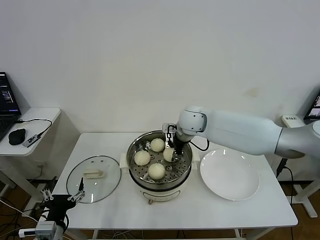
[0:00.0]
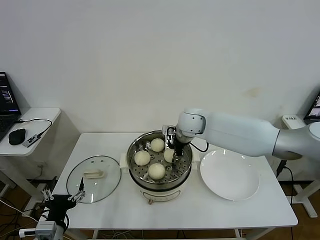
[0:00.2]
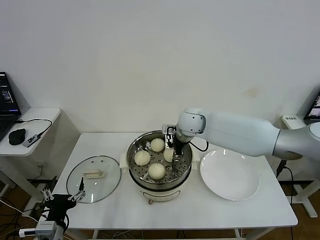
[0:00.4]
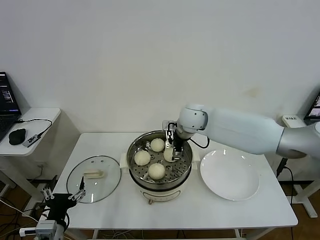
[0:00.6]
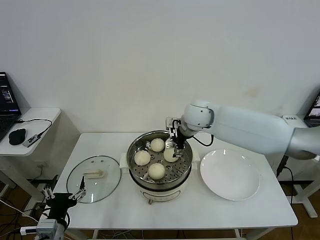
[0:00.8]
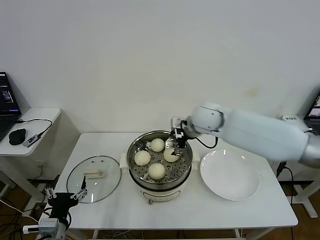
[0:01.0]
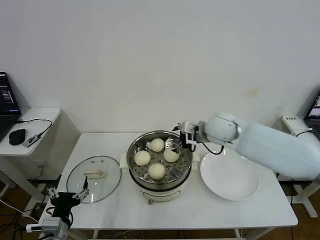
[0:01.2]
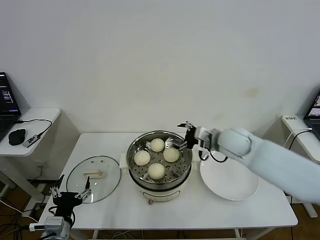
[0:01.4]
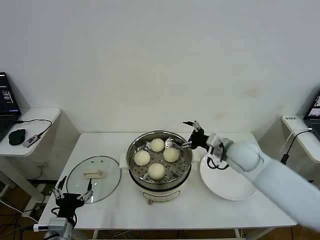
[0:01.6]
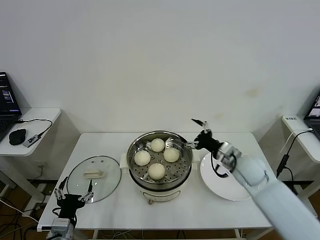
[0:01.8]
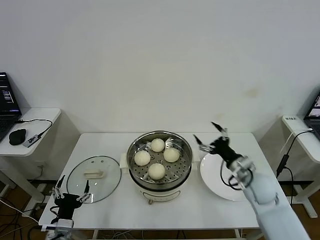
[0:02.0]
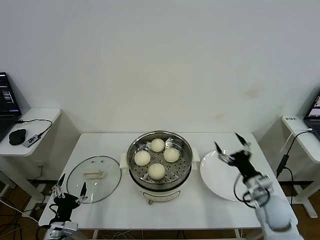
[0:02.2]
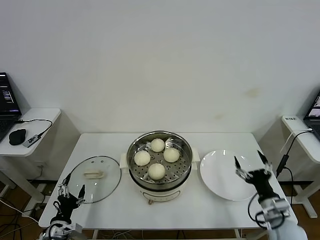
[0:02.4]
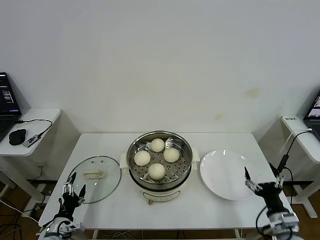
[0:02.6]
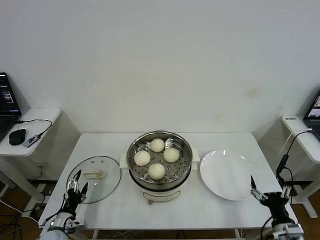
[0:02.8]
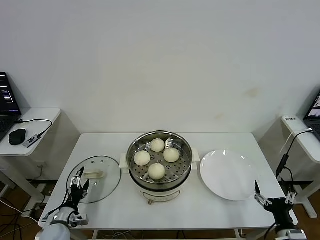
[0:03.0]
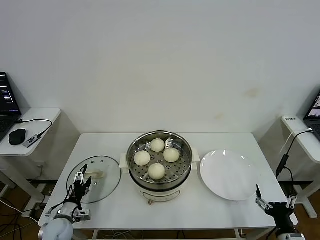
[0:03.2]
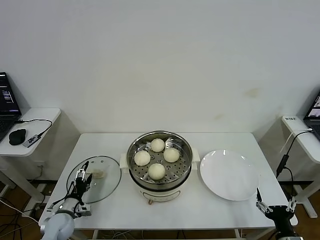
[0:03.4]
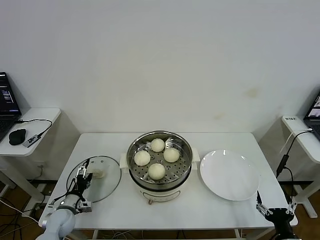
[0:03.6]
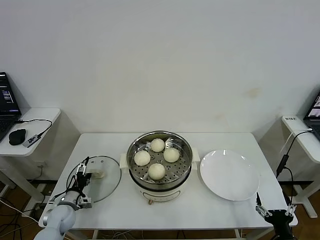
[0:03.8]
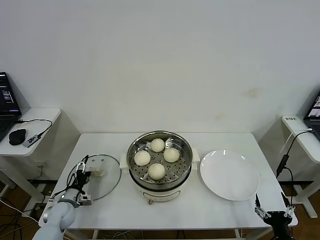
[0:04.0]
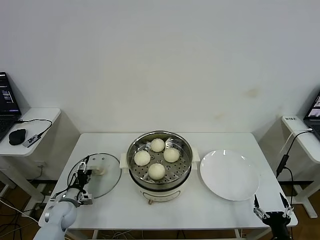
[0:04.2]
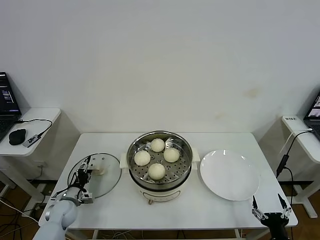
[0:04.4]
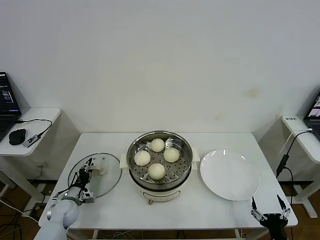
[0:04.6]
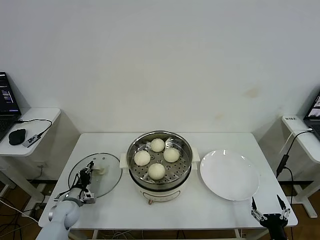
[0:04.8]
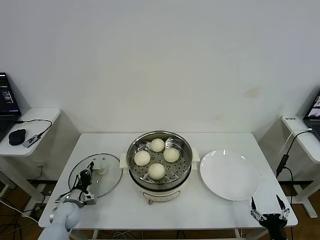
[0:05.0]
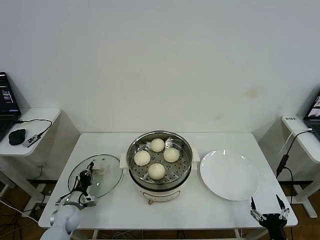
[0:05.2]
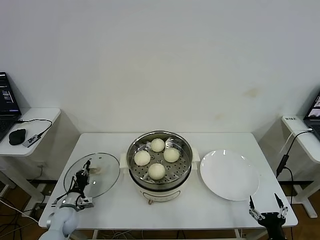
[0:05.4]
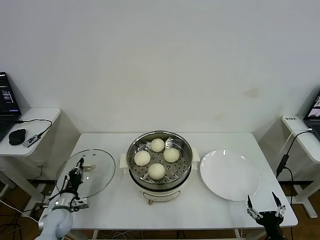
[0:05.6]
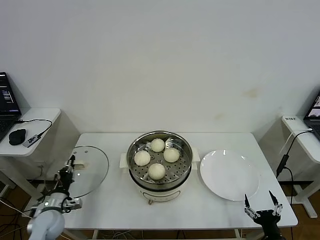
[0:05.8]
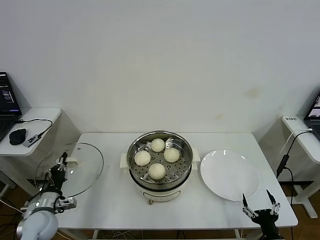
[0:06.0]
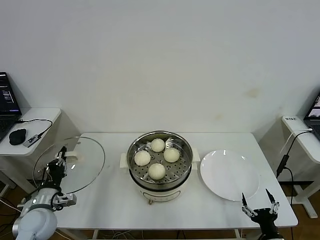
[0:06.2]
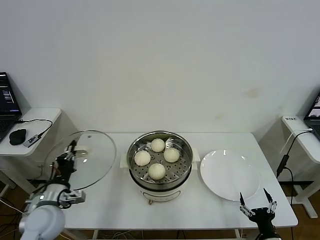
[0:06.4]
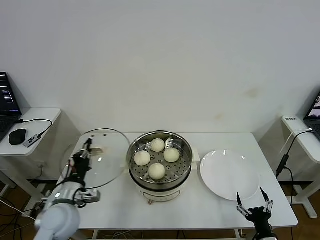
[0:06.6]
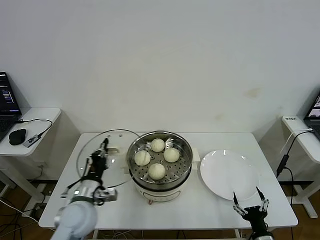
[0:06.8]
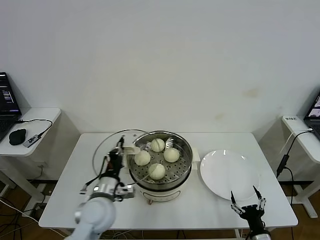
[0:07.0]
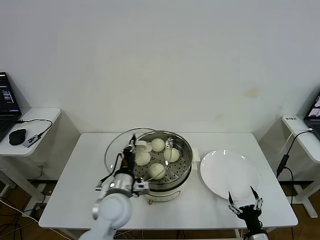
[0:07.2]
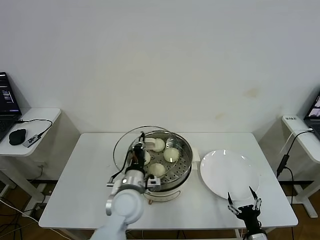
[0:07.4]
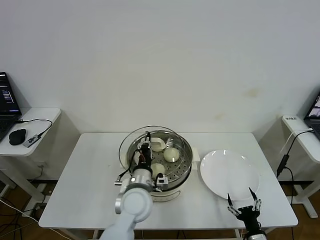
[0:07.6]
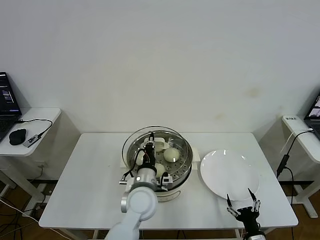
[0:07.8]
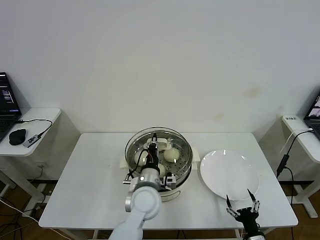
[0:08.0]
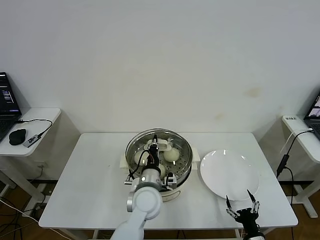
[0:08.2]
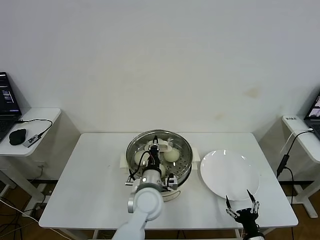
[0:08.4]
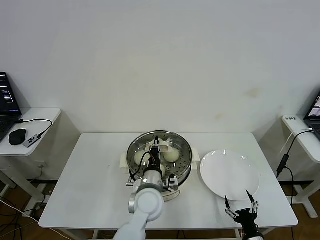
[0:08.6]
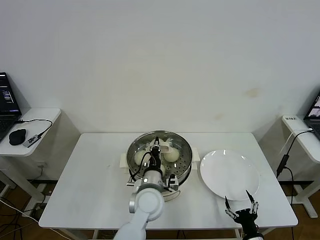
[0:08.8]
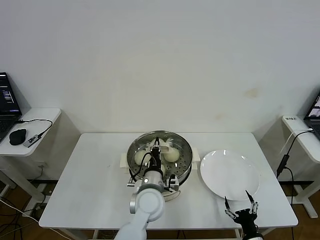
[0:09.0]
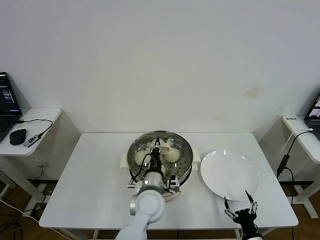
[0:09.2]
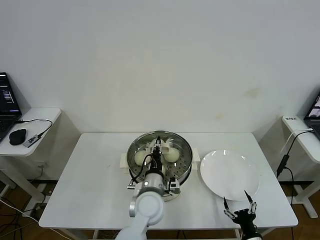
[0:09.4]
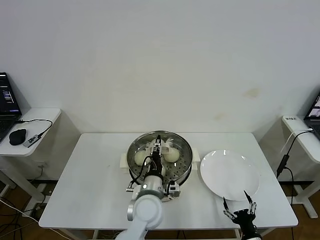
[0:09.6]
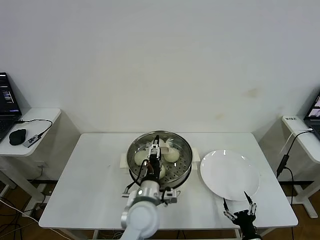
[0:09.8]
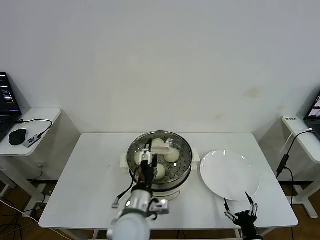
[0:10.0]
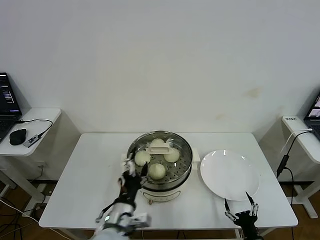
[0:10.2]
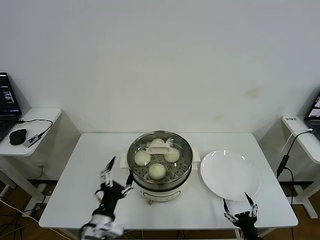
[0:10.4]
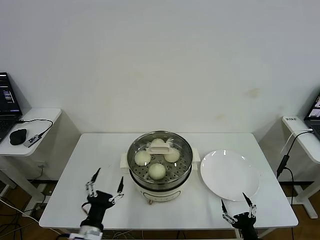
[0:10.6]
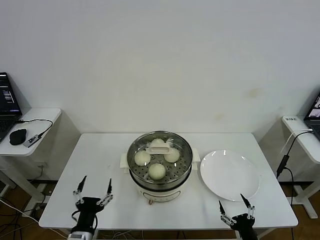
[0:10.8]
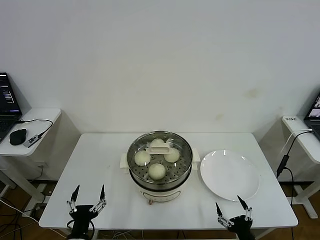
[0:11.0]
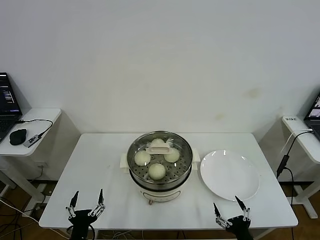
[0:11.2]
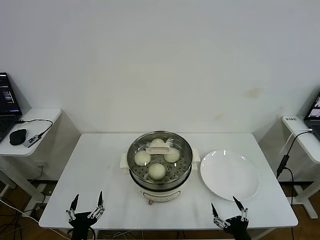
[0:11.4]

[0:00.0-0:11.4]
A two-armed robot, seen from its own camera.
Task of the whole recording: take steamed baozi put them in steamer then cover it.
Step, 0:00.8 to 0:05.0: Grasp the pot lid with left gripper.
Step, 0:05.2 to 0:09.6: Place the pot lid on the steamer with left gripper.
0:00.0 to 0:01.4: The right gripper is displaced to the right and backward by approximately 15 cm, and opens its fingers.
0:01.4 to 0:02.8: The right gripper heads backward, downward and to the right, covering some 35 cm; the left gripper heads downward, to the left and forward, covering approximately 15 cm.
0:02.8 to 0:04.2: The right gripper ends up about 5 cm from where it was. Meanwhile the left gripper travels forward by roughly 10 cm.
0:04.2 to 0:05.6: The left gripper closes its fingers.
0:05.6 to 0:07.2: The right gripper moves about 5 cm. The left gripper heads to the right and upward, covering roughly 30 cm.
0:07.2 to 0:08.6: The left gripper moves to the right, about 10 cm.
0:08.6 to 0:10.0: The left gripper moves backward, some 5 cm, and opens.
0:10.0 to 0:11.4: The left gripper heads to the left, backward and downward, covering some 25 cm. Meanwhile the right gripper shifts roughly 5 cm upward.

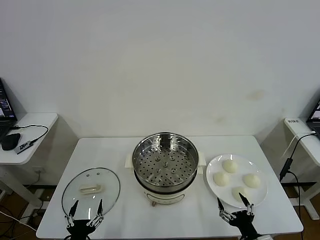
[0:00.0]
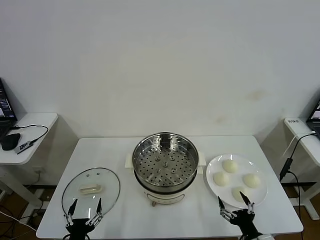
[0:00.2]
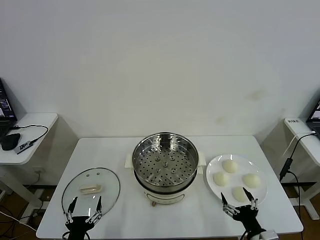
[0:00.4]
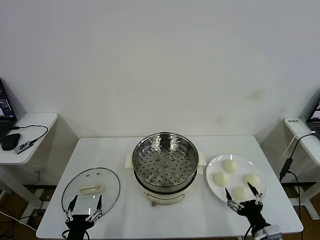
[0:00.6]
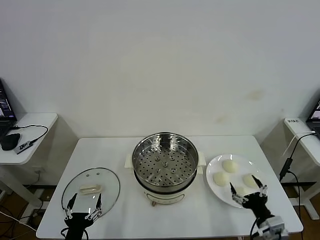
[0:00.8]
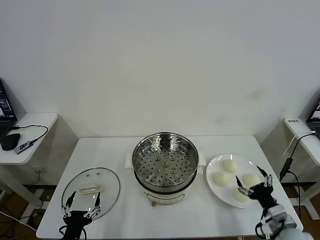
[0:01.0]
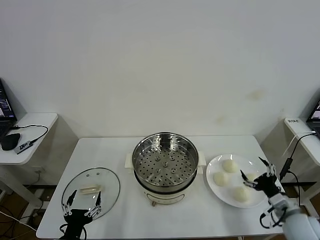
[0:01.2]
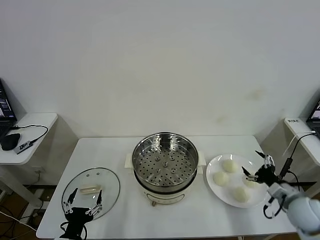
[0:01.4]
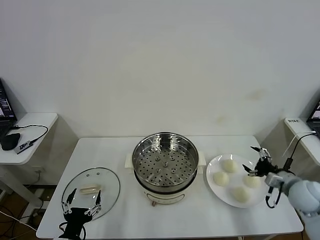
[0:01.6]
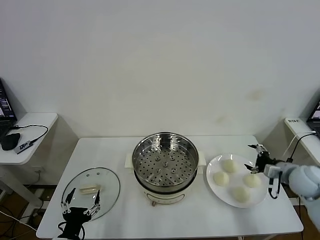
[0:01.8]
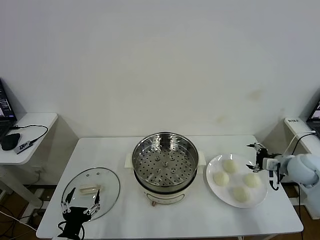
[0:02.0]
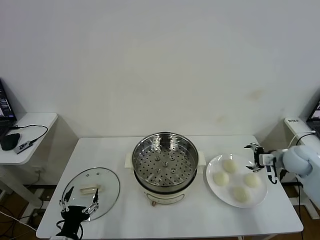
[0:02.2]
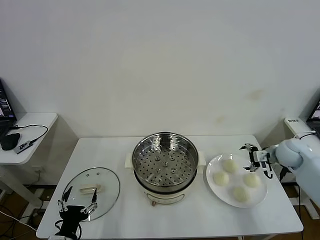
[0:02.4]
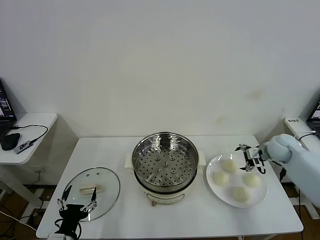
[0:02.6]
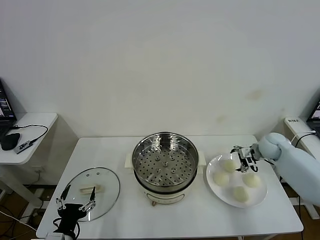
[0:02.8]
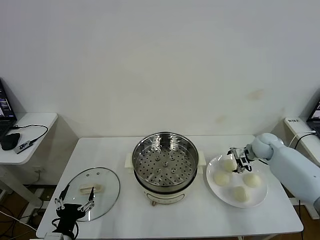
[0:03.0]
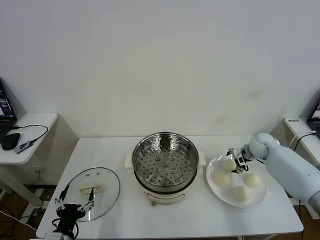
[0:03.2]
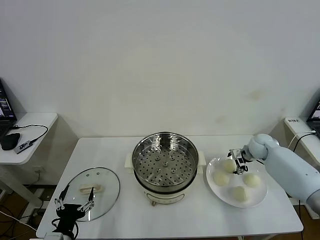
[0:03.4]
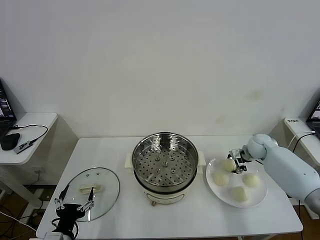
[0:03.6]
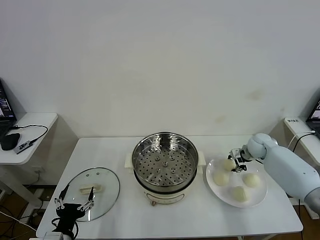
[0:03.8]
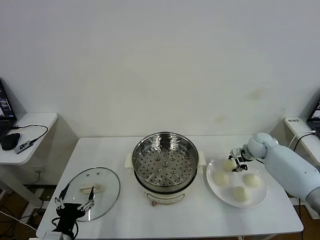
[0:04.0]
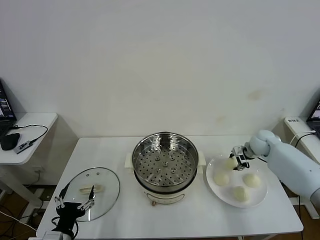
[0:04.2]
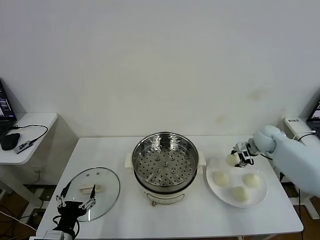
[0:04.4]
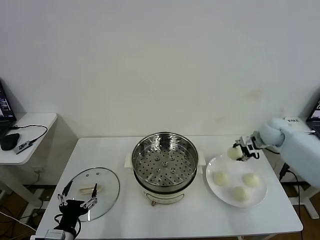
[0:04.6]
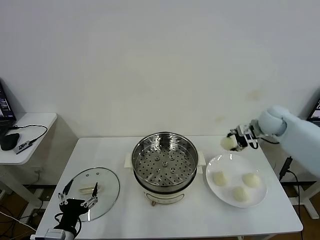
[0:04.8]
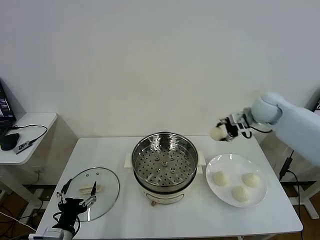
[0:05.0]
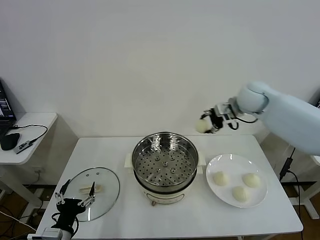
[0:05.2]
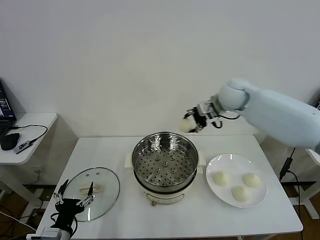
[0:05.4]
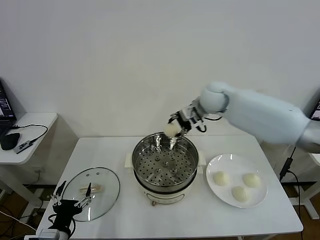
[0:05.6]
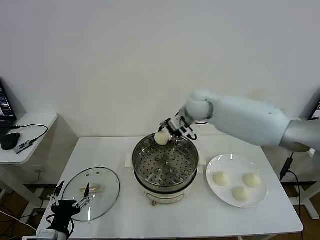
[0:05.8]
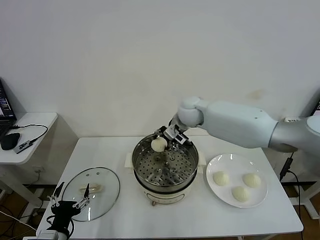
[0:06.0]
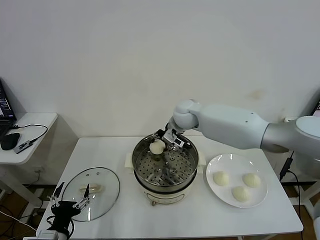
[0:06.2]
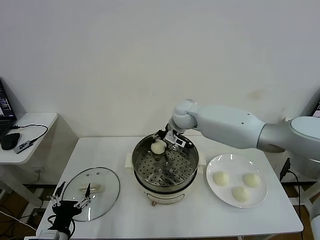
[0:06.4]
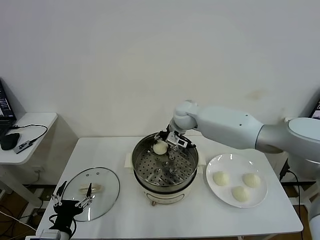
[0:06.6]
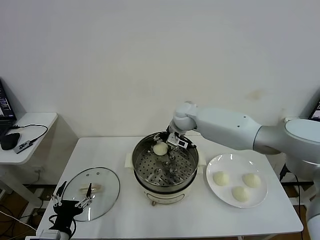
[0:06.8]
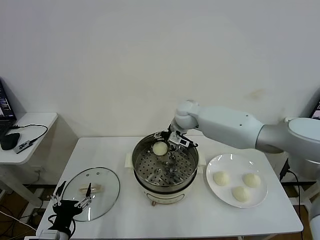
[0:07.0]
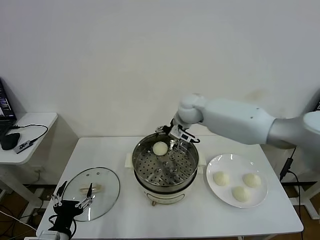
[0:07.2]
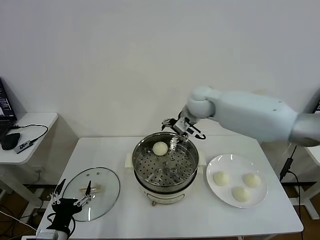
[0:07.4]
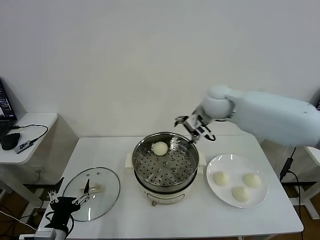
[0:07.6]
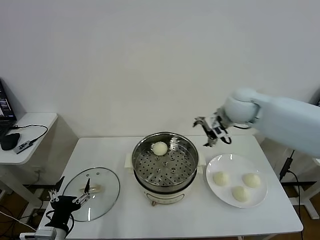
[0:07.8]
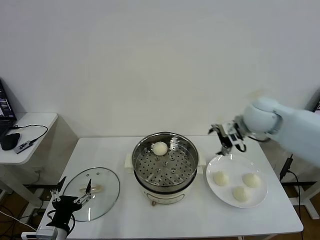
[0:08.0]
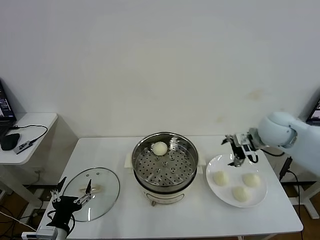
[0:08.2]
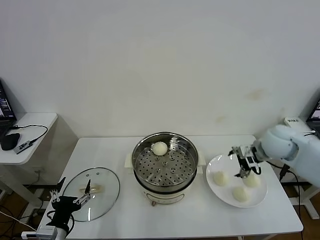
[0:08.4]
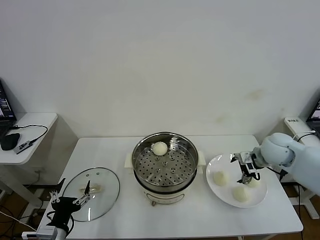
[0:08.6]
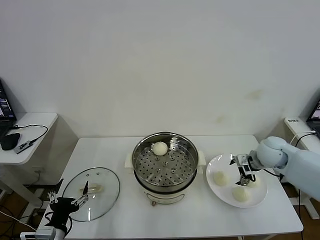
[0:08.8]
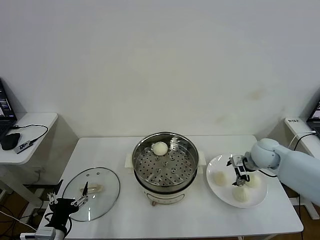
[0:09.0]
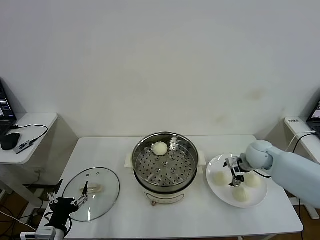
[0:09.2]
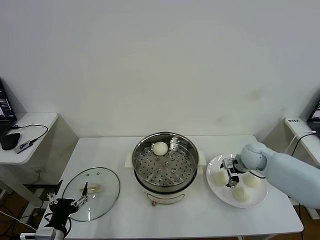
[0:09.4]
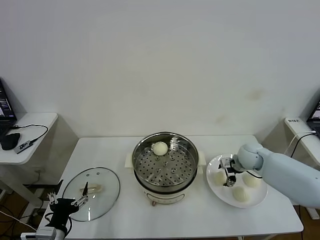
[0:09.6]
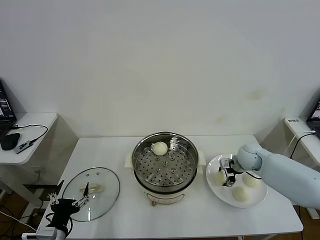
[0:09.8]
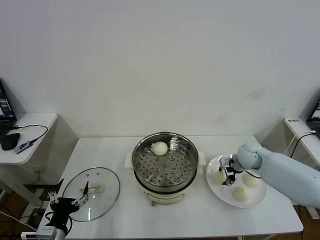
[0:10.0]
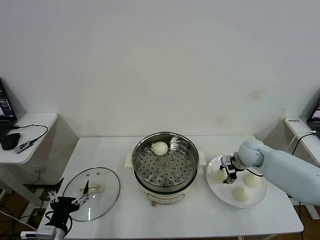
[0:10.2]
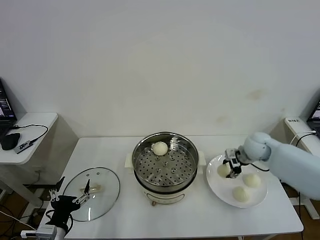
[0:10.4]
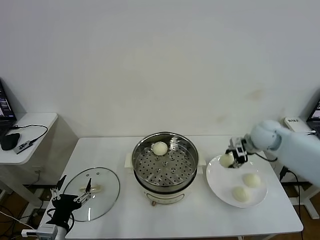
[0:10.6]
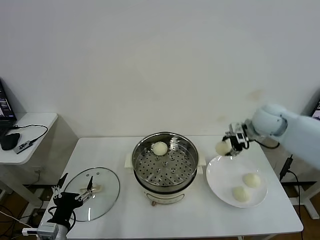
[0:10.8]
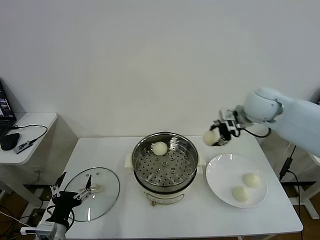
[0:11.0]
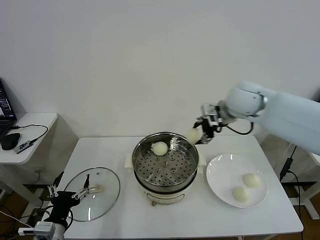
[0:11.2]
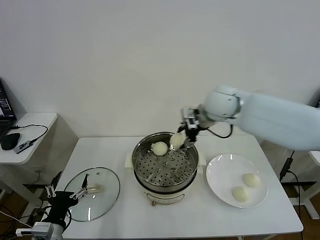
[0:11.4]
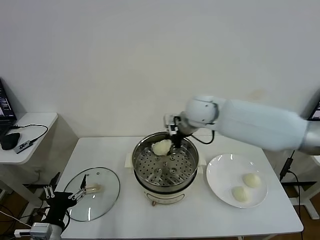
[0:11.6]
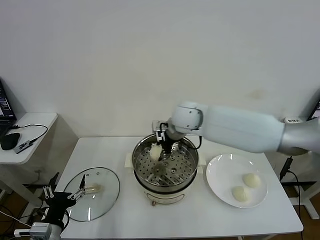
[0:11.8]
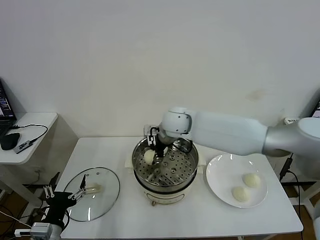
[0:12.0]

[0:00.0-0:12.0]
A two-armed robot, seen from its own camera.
Task of the whole recording: take steamed baozi put them in steamer then cover it.
Step, 0:00.0 to 0:03.6: Grasp the baozi in the plate with right gripper.
Step, 0:03.8 to 0:06.8: Place the baozi on the steamer with right gripper.
Step, 0:07.0 to 0:09.8: Grasp the baozi in the plate with right gripper.
0:01.6 to 0:03.0: The right gripper goes approximately 20 cm forward.
0:03.0 to 0:04.4: The right gripper closes.
0:04.4 to 0:06.0: The right gripper travels to the left by some 30 cm.
0:06.0 to 0:07.6: The right gripper heads to the right and upward, covering approximately 10 cm, and opens.
0:07.6 to 0:09.0: The right gripper moves to the right and downward, approximately 25 cm.
0:09.0 to 0:10.4: The right gripper closes up.
0:10.4 to 0:12.0: The right gripper travels to the left by some 30 cm.
